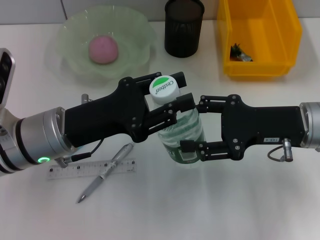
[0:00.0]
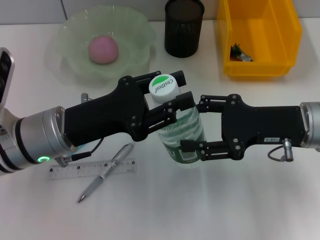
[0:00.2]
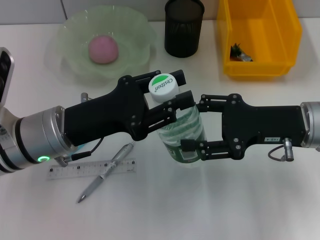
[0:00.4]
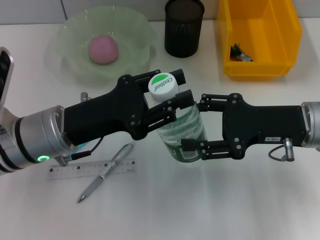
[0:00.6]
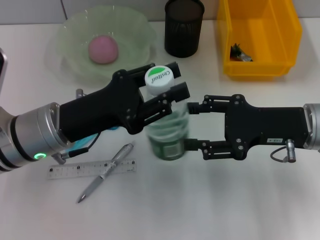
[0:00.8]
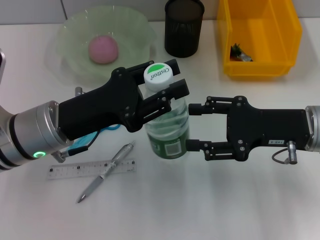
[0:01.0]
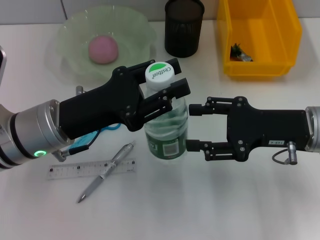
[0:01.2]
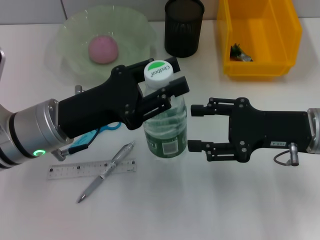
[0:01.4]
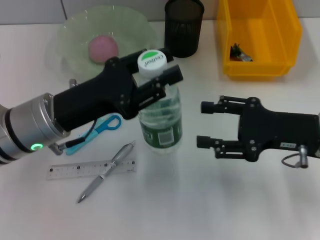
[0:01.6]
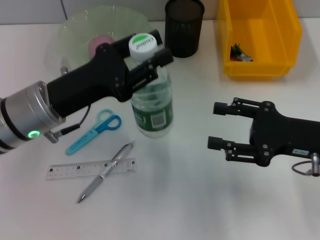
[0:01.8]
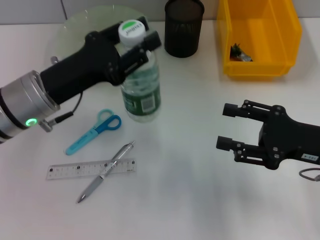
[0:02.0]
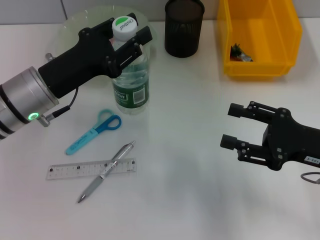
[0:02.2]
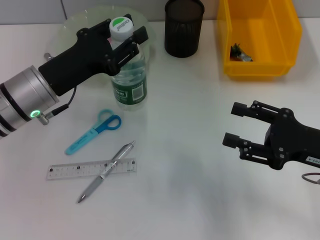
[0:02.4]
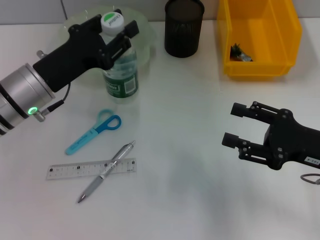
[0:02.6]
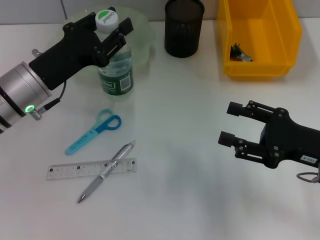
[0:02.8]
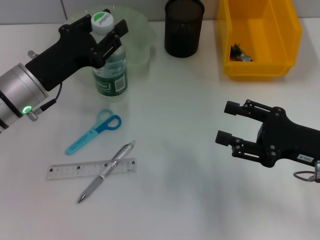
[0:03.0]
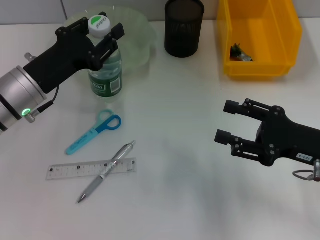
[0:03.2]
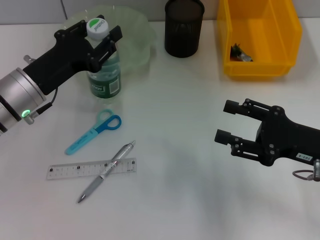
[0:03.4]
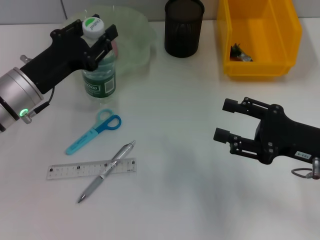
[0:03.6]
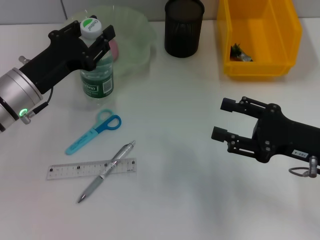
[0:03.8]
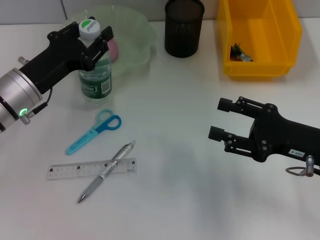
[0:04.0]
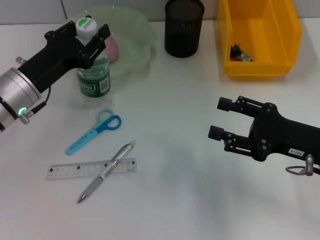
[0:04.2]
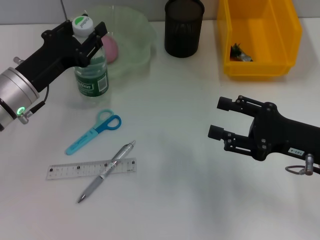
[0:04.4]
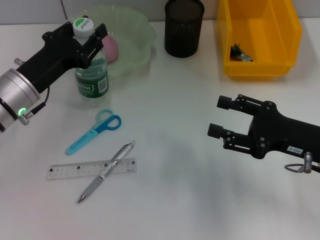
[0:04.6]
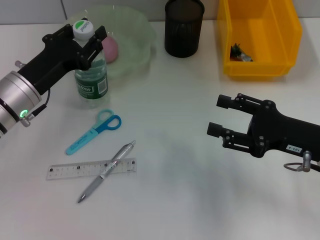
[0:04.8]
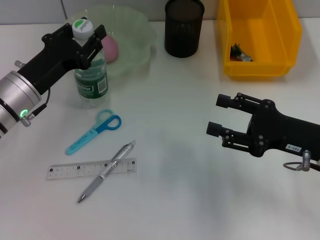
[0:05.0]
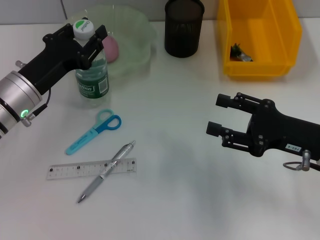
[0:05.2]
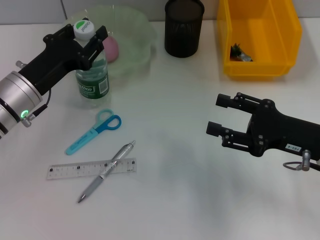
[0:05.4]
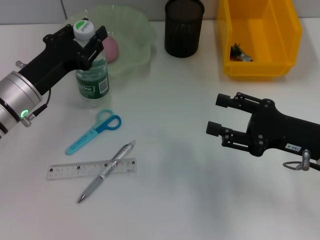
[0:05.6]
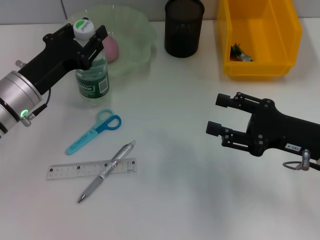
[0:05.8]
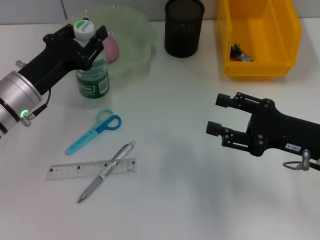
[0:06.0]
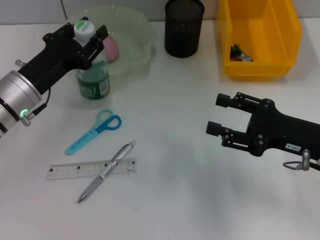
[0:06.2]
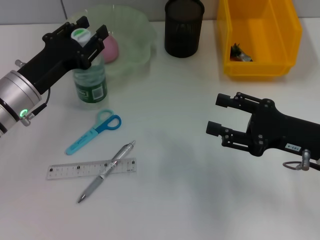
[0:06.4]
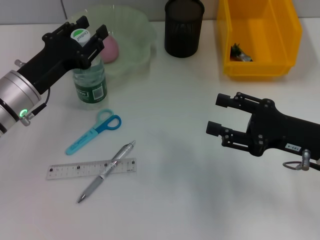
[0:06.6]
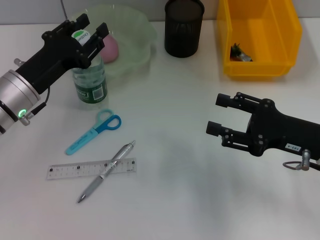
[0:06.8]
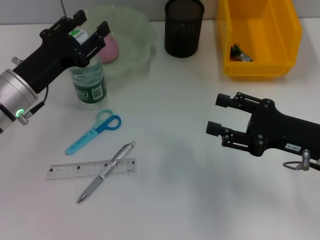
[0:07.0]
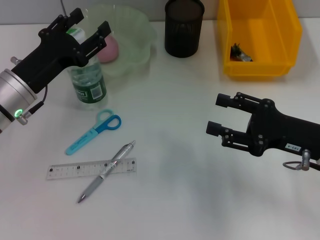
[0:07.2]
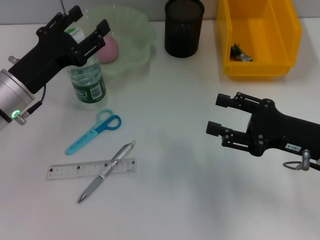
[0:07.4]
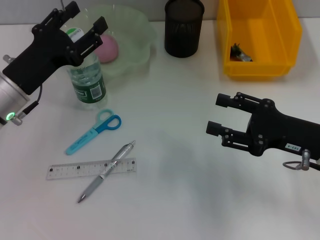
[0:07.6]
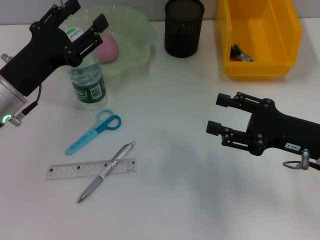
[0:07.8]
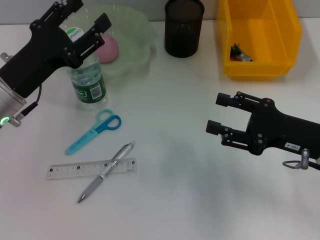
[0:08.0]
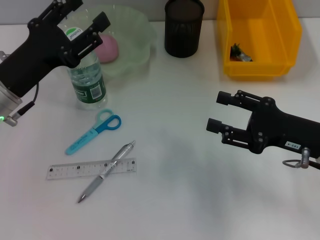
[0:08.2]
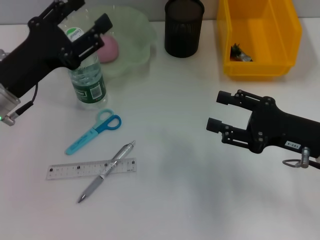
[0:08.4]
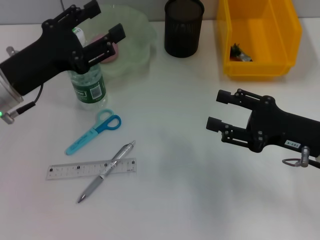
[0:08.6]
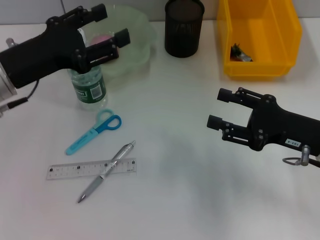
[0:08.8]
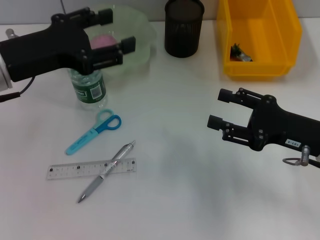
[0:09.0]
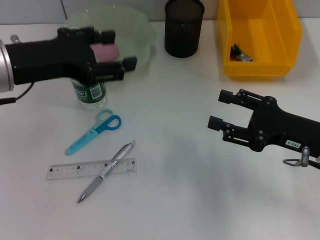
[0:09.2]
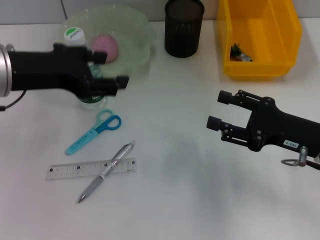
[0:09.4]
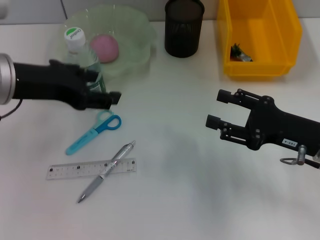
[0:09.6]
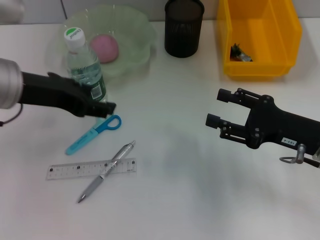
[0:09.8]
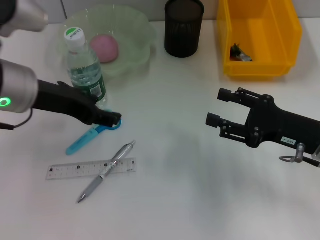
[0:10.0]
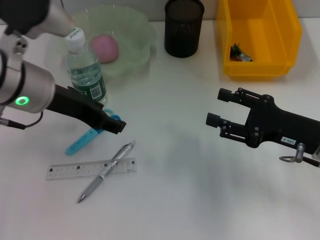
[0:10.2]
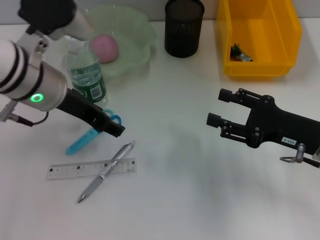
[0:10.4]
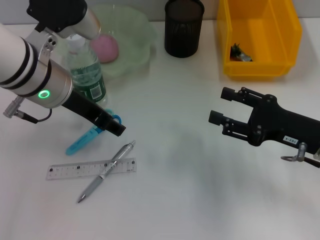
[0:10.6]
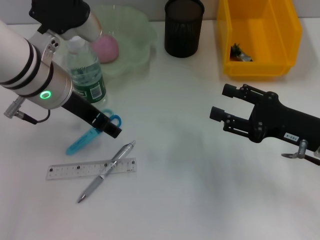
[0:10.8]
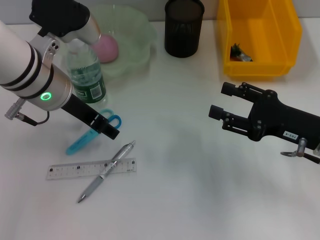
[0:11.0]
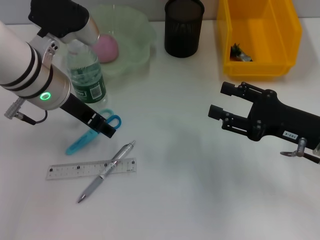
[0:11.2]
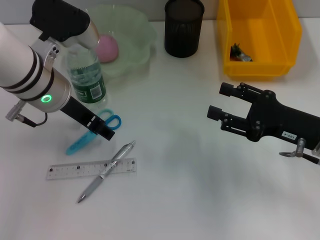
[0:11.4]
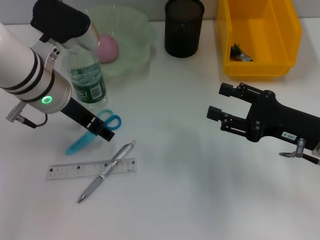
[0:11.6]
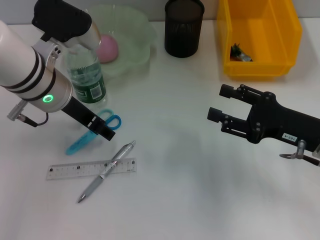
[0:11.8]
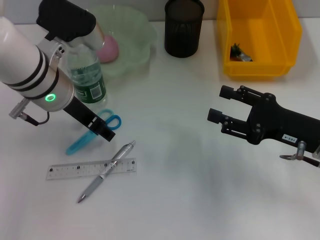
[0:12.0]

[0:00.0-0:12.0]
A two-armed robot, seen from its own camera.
Step, 0:01.0 to 0:07.6: Place the water bottle on the table with the left hand.
0:01.6 to 0:03.0: The left gripper ends up roughly 5 cm from where it was.
0:03.0 to 0:04.4: The grippers stay close to where they were, moving slightly.
0:04.4 to 0:06.0: Both grippers stay put.
0:06.0 to 0:07.6: The left gripper opens its fingers.
0:07.6 to 0:09.0: The left gripper heads upward, covering roughly 10 cm.
0:09.0 to 0:10.4: The left gripper heads to the right, covering about 5 cm.
0:10.4 to 0:12.0: The grippers move only a little.

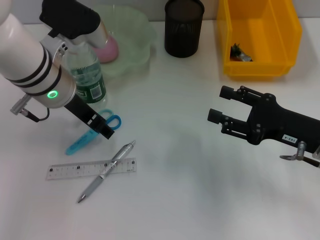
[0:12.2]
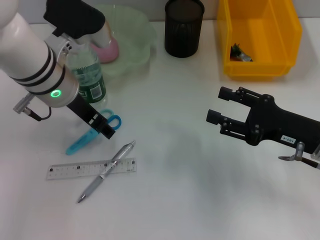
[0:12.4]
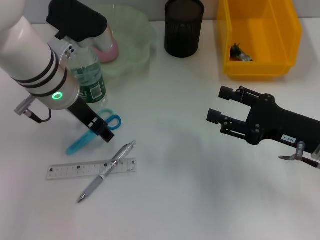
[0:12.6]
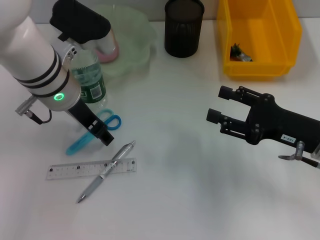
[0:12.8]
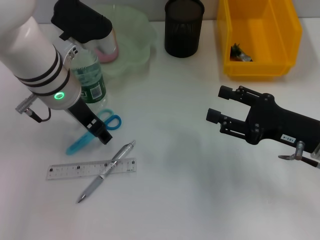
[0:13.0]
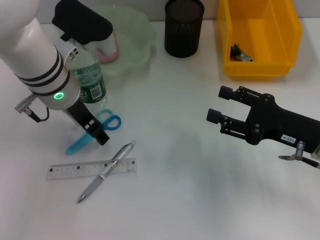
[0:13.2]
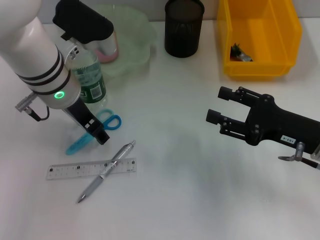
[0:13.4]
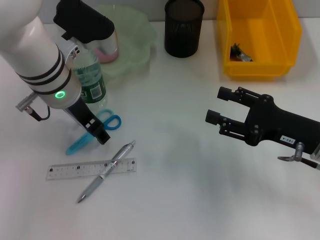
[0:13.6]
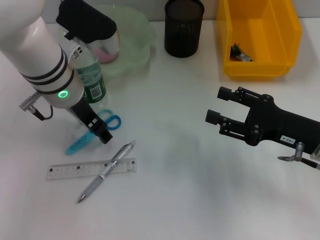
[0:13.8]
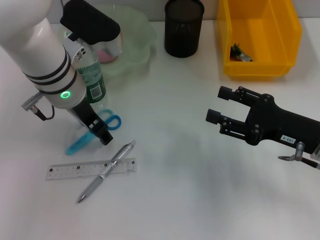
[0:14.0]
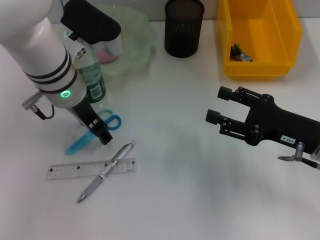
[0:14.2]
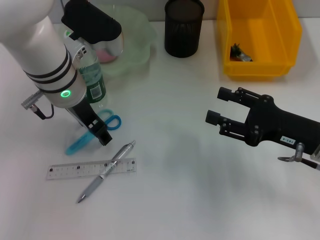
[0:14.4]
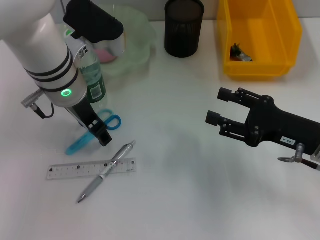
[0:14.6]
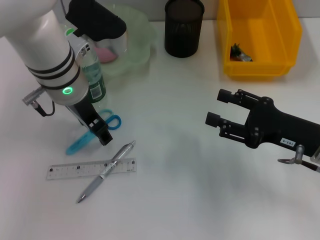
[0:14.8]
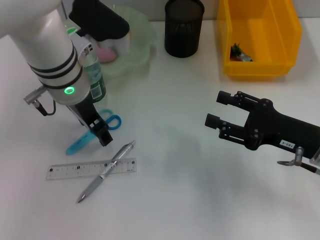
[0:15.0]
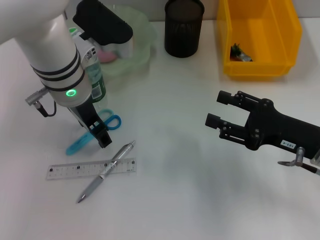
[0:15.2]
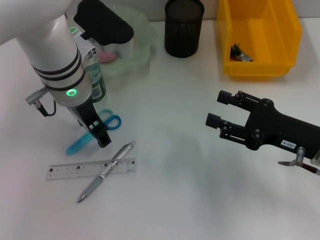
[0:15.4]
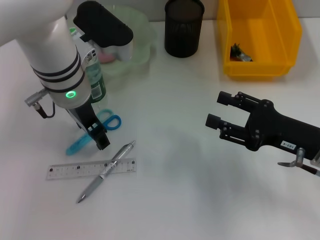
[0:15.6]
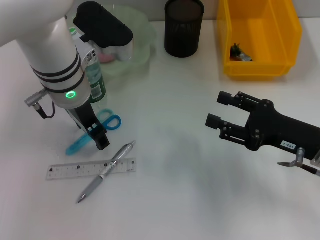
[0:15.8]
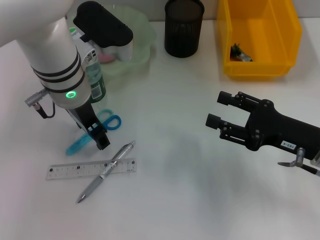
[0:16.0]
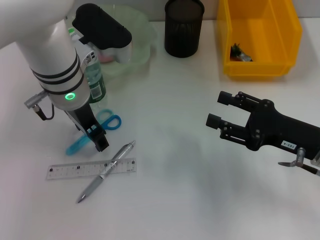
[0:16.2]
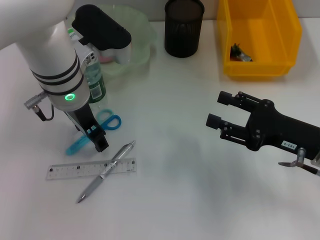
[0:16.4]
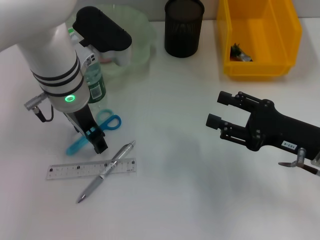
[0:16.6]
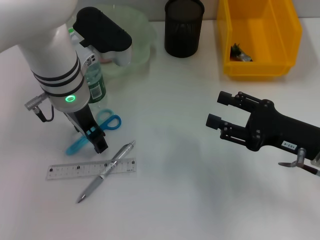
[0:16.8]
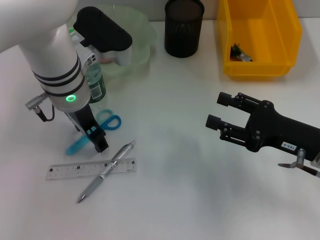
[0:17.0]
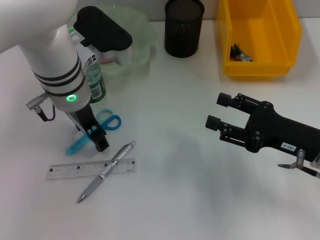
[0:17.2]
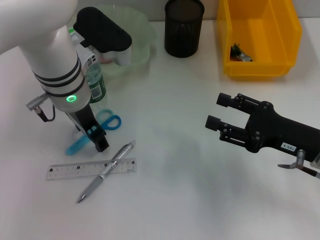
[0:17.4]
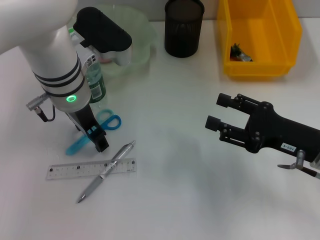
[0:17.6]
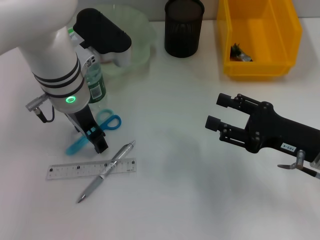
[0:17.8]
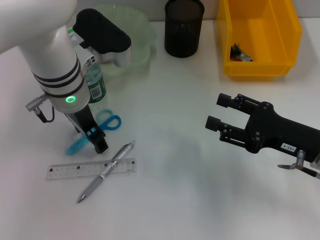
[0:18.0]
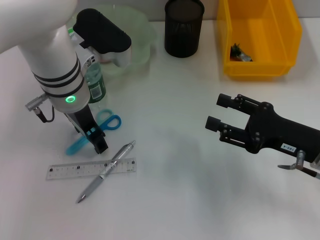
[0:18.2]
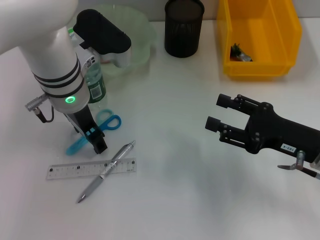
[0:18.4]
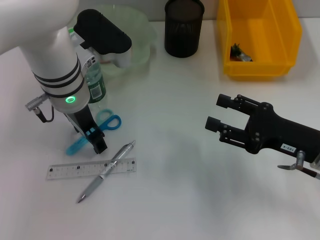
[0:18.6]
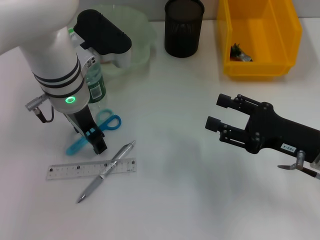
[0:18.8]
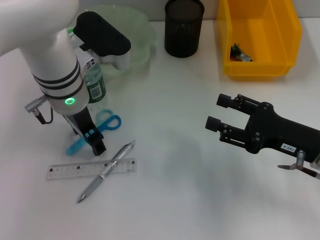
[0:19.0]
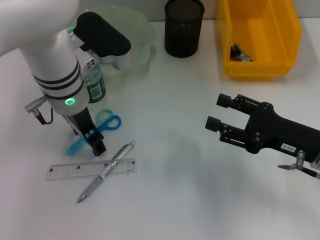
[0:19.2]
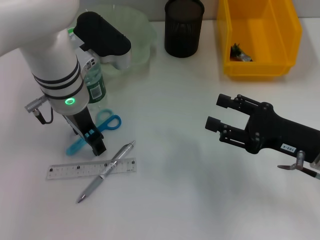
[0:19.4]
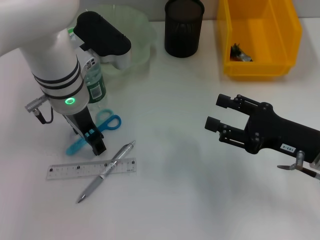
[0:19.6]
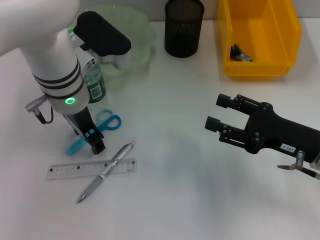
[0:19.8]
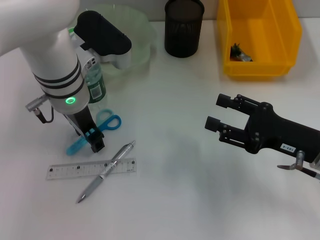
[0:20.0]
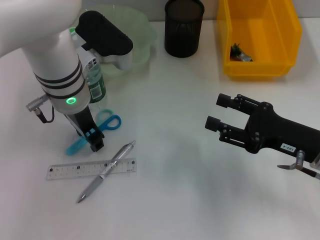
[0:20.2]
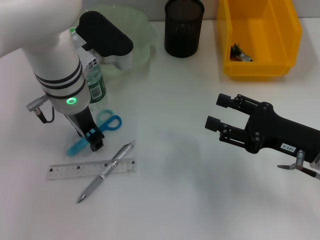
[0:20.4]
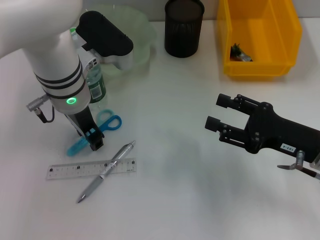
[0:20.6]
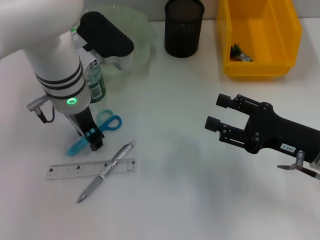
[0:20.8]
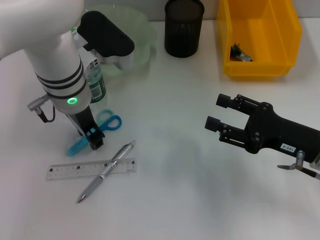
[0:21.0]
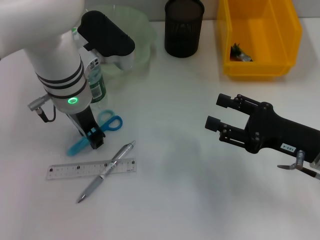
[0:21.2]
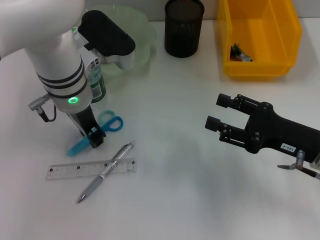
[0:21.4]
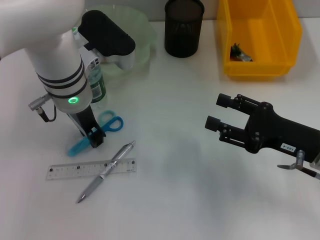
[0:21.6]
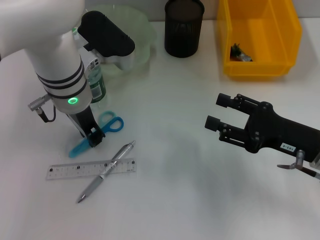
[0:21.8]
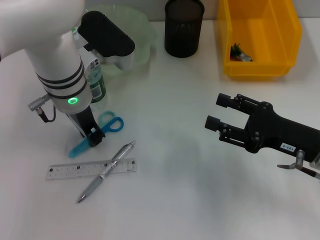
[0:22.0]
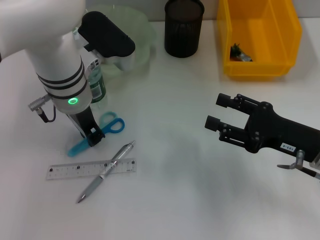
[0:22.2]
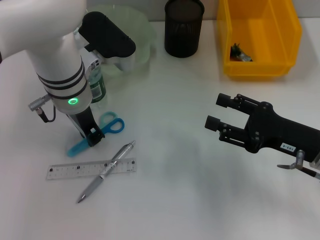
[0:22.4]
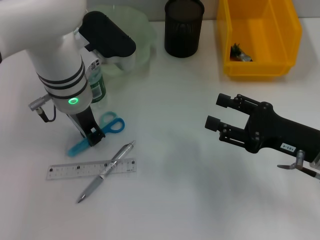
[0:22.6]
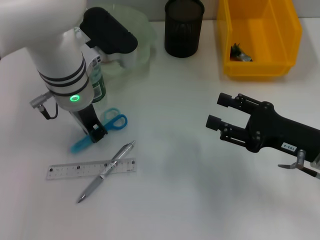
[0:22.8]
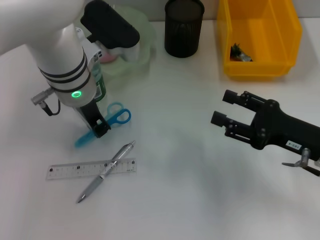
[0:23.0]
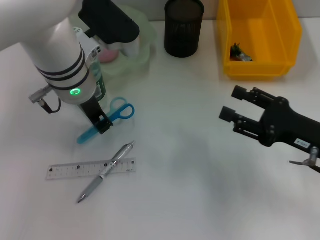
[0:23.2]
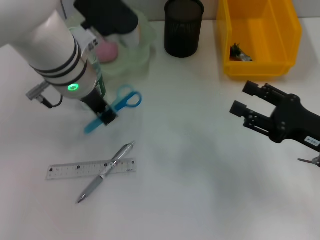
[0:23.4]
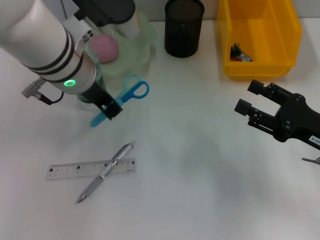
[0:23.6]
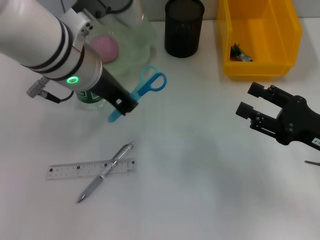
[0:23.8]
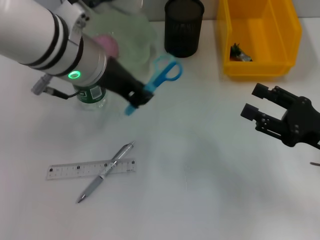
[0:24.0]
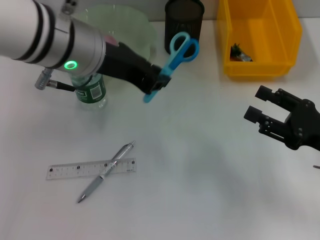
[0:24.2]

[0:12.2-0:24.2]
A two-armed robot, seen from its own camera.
Step, 0:12.2 to 0:22.2: Grab the blue scissors with the left hand.
0:12.2 to 0:15.2: The grippers stay close to where they were, moving slightly.
0:15.2 to 0:18.2: Neither gripper changes place.
0:18.2 to 0:19.8: Neither gripper changes place.
0:19.8 to 0:21.2: The left gripper closes up.
0:21.2 to 0:22.6: Both grippers stay put.
0:22.6 to 0:24.2: The left gripper heads upward, covering roughly 10 cm.
